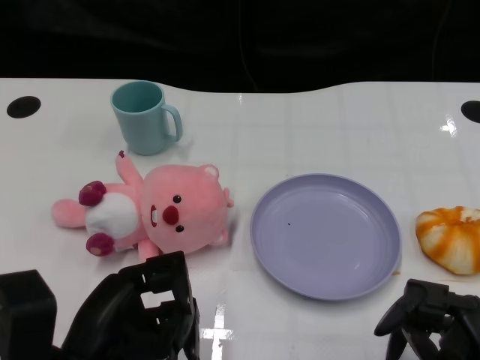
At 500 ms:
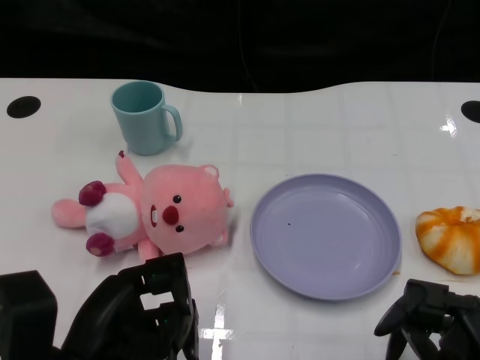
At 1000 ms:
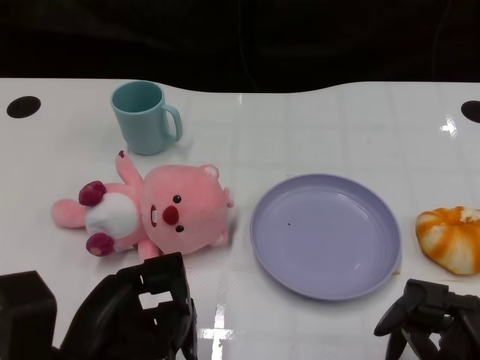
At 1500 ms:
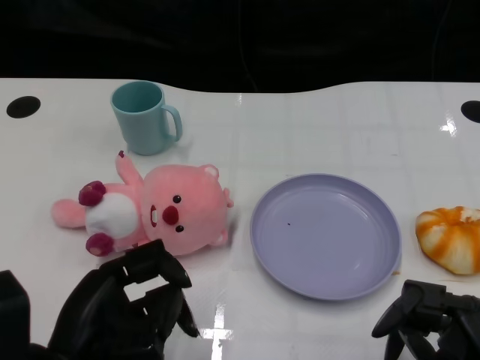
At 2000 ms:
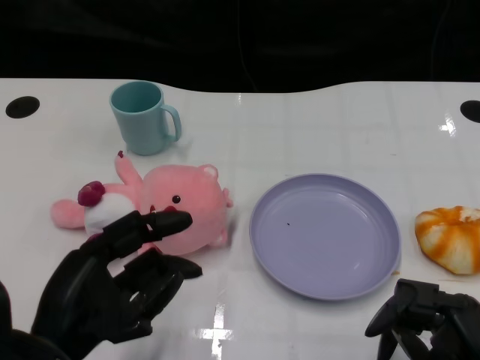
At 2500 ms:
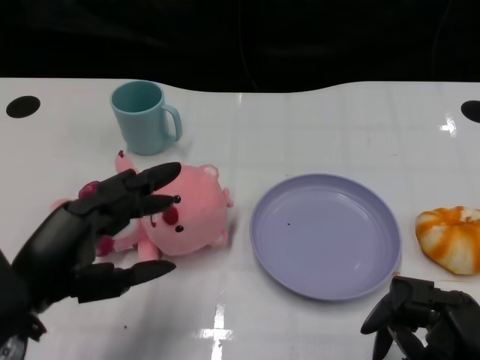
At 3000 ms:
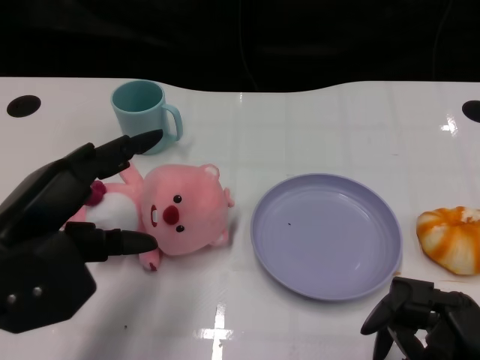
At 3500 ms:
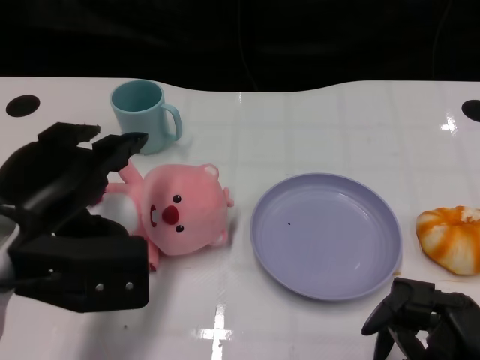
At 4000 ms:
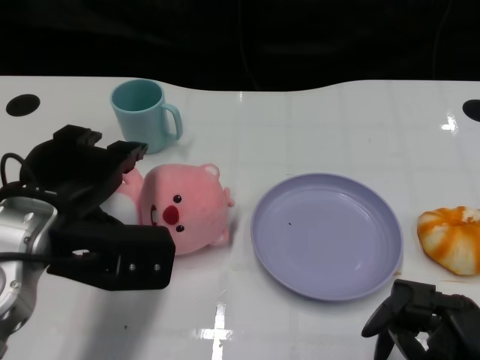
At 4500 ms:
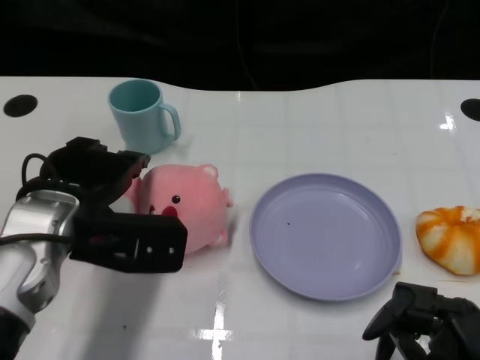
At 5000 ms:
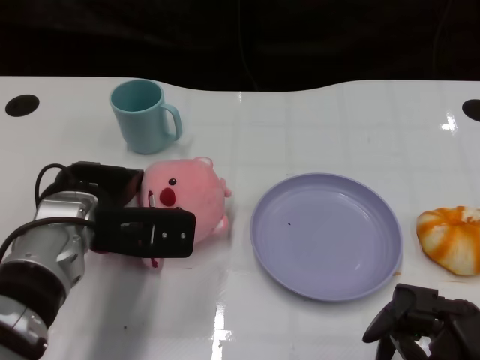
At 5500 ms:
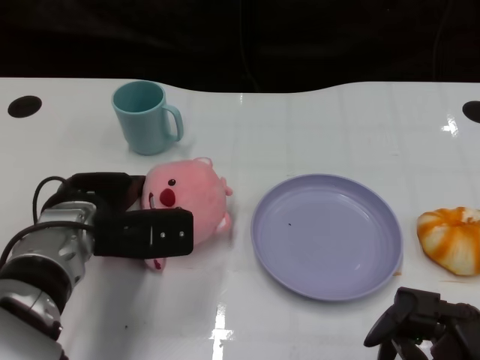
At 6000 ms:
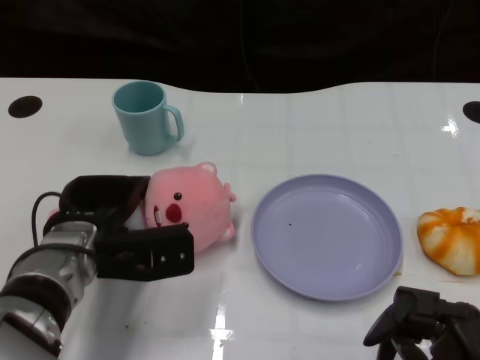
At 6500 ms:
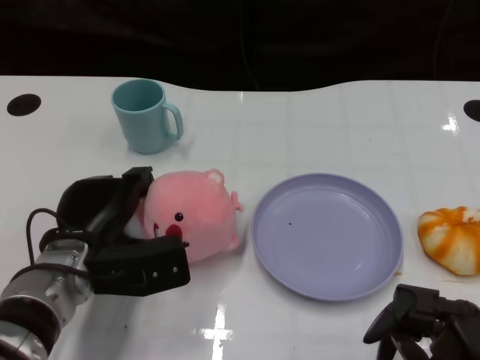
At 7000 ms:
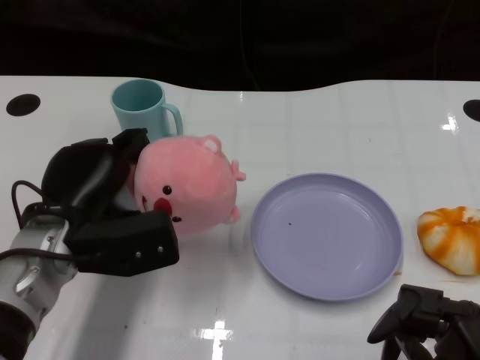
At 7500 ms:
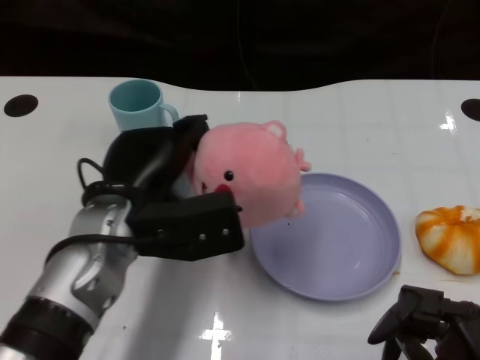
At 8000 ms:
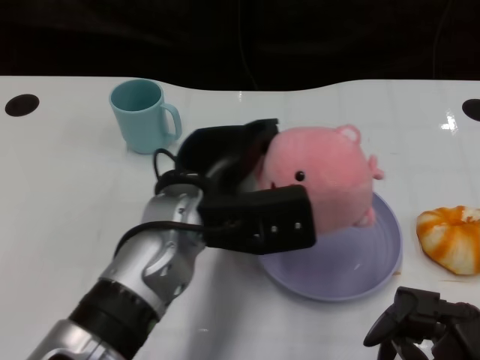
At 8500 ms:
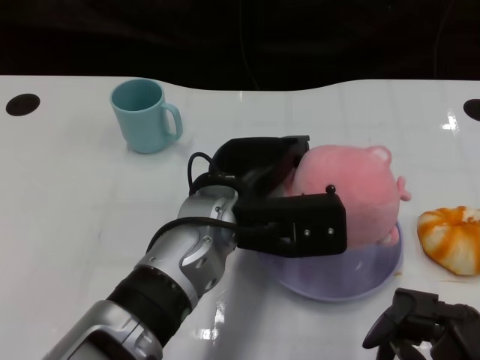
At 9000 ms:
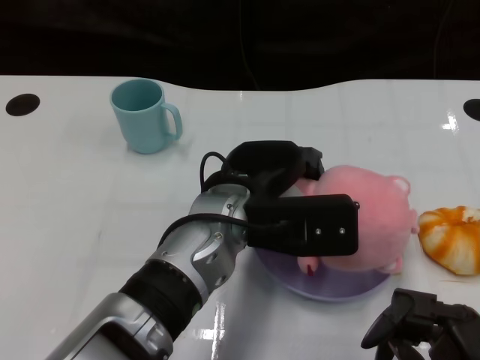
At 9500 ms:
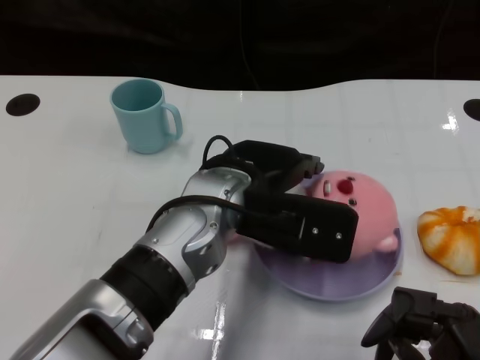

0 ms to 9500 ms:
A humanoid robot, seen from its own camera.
Task of the whole recording: Pick up the doll on one side of the plate and place it into the plate.
Step, 1500 ms to 6500 ms: Grasp the pink doll with the left gripper.
2000 ms to 4000 ms: The left hand heads forward and upward, covering about 10 cm.
4000 ms to 5500 ms: The left hand moves downward and forward, about 10 cm.
5500 ms to 7500 ms: The left hand ends up approximately 5 cm from where it was.
7500 ms to 9500 ms: The left hand goes some 10 cm to the right.

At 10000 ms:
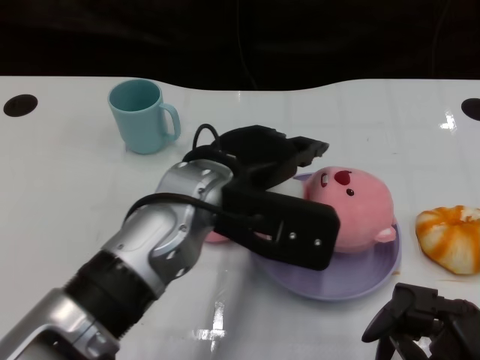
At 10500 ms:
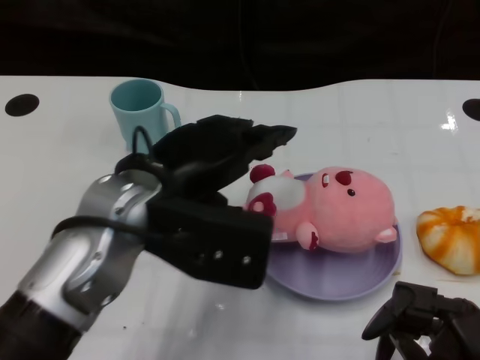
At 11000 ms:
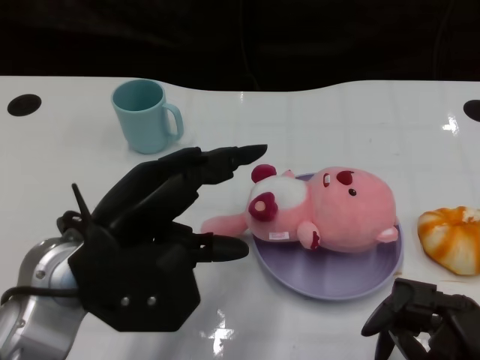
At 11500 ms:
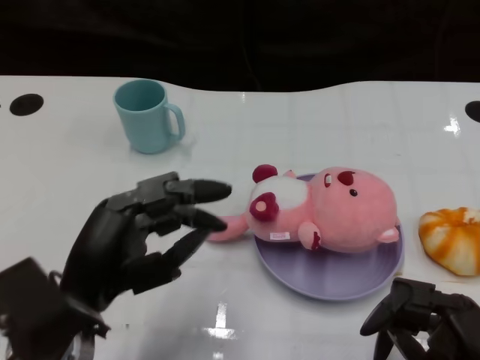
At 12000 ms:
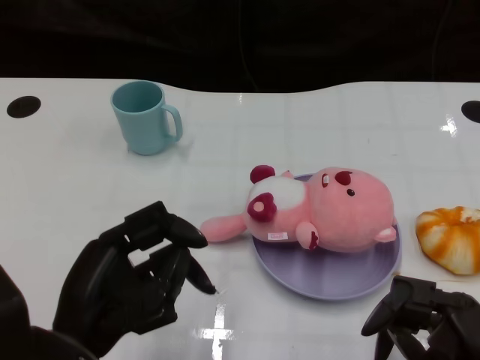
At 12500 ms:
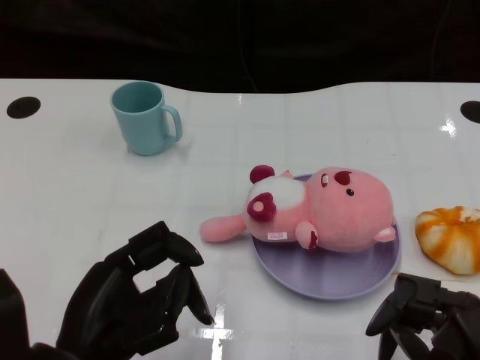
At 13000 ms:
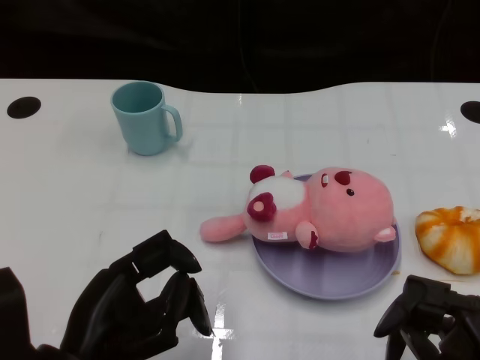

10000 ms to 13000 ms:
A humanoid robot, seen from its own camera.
Task of the whole recording: Pick up the doll on one side of the plate and place it into the plate.
10000 ms to 11500 ms: The left hand travels to the left, backward and downward by roughly 15 cm.

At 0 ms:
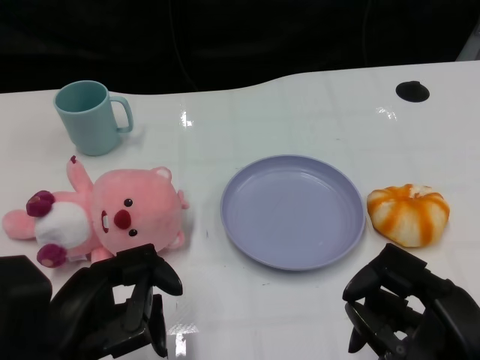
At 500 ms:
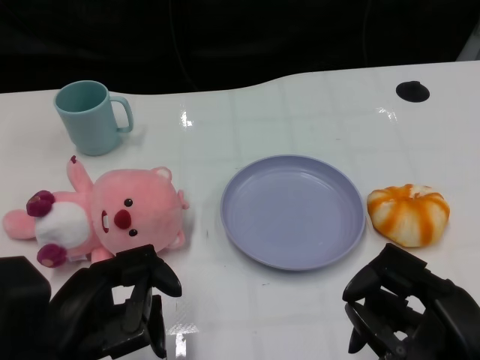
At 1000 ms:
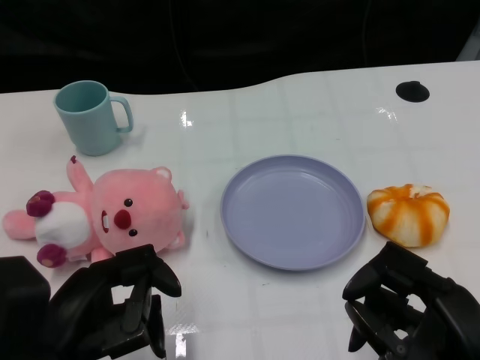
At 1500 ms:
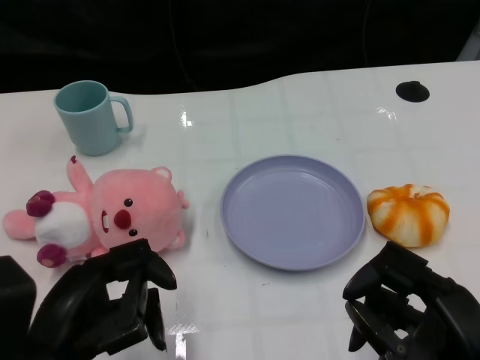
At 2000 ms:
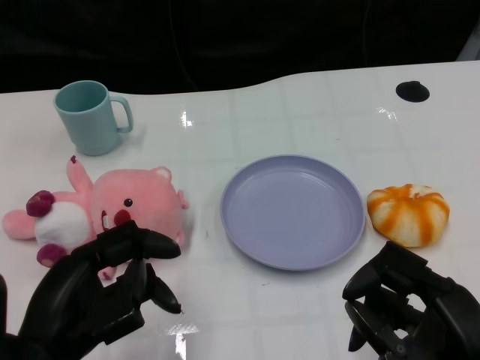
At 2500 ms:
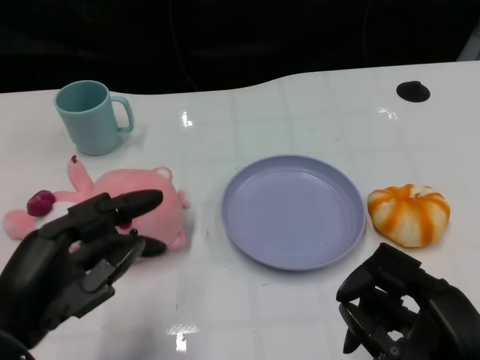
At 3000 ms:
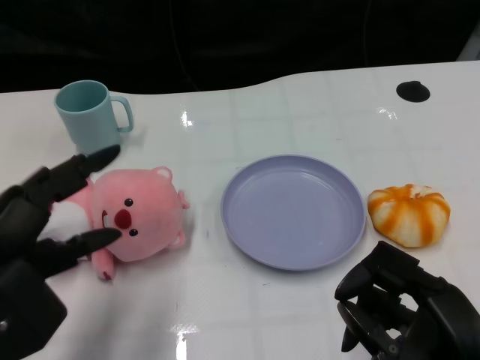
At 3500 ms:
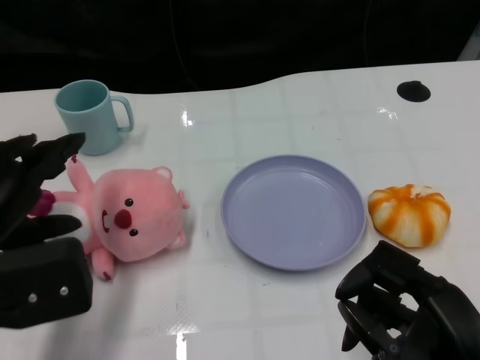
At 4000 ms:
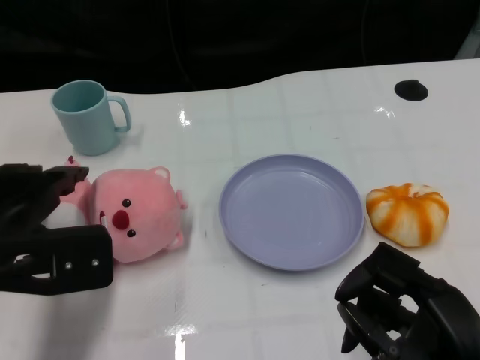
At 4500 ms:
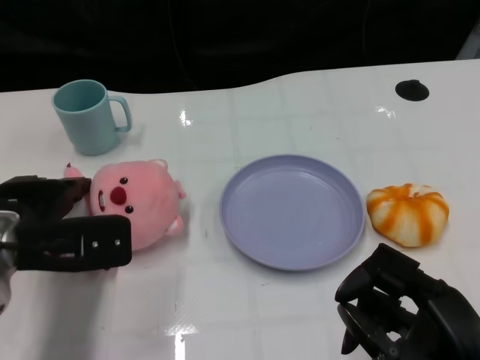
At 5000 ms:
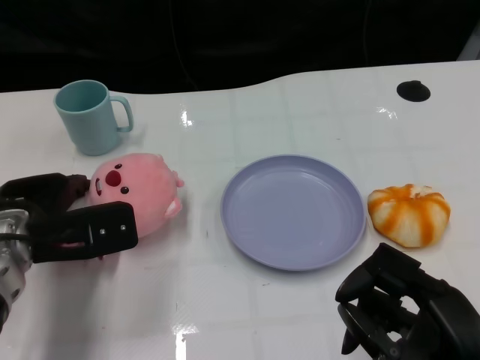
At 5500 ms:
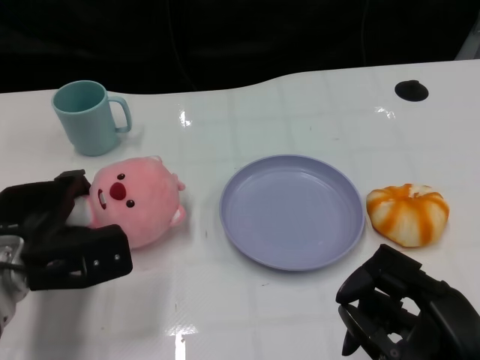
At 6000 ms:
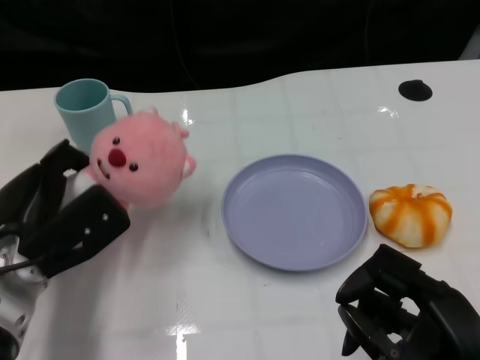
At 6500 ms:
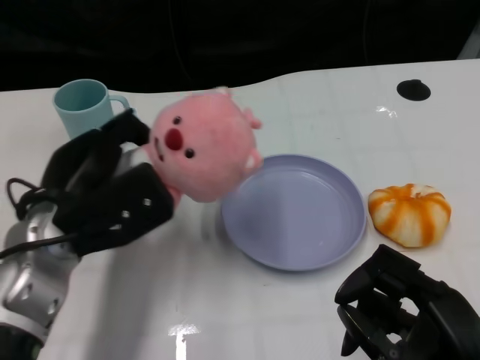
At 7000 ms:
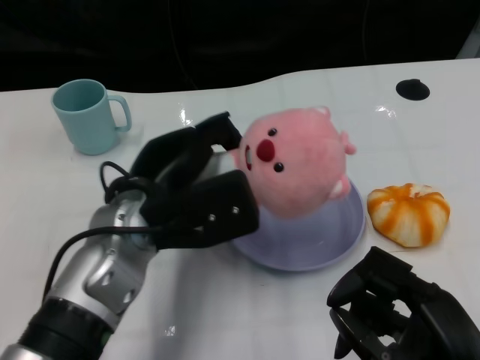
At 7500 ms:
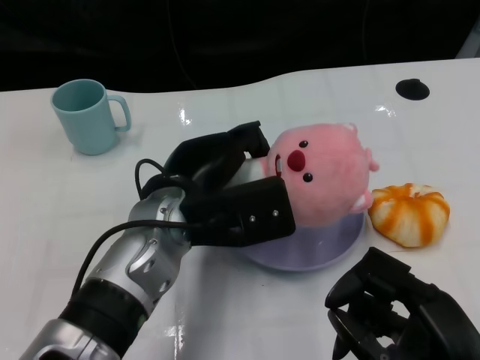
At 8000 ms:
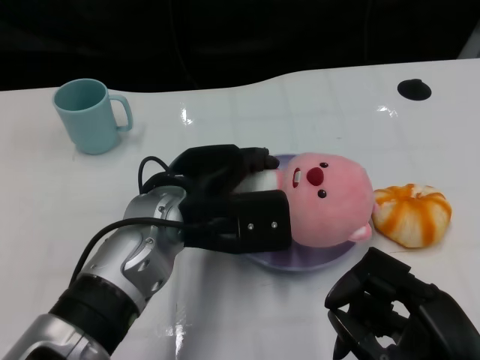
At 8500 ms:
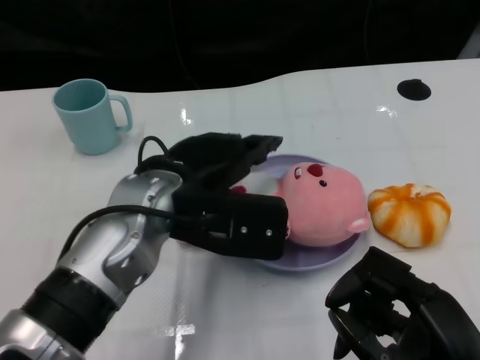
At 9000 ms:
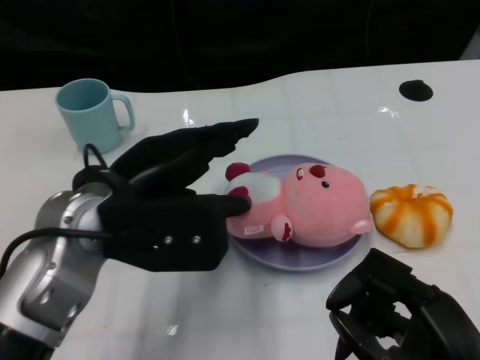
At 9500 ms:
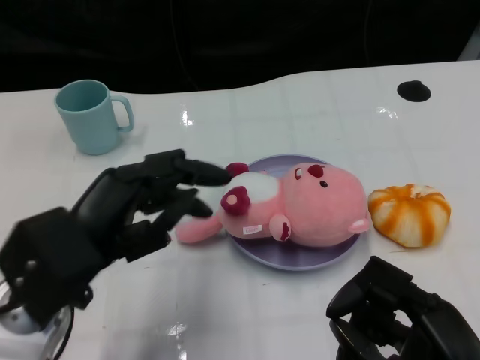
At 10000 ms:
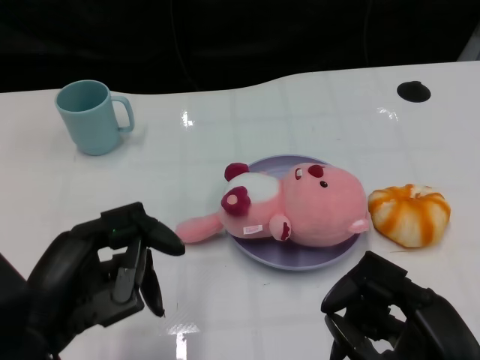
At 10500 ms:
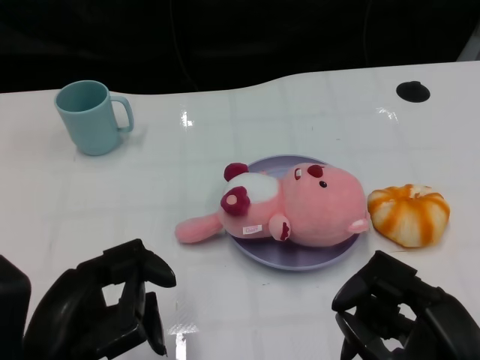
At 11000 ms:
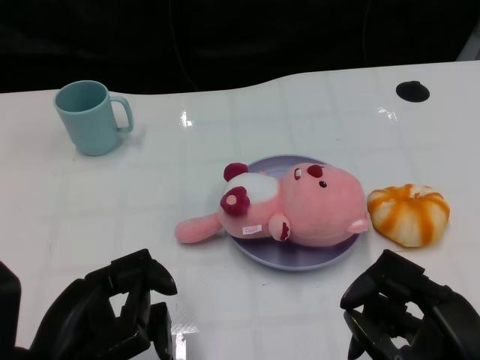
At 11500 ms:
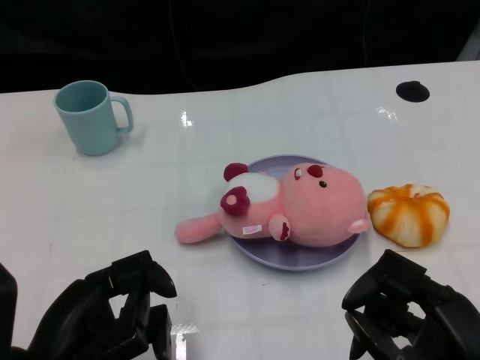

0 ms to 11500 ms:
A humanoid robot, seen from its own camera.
Task of the whole recording: Pick up the doll on one side of the plate and place it into the plate.
Step, 1500 ms to 5500 ms: Grasp the pink doll with the left gripper.
Step, 6000 ms to 8500 ms: Place the pink doll into the plate with the left gripper.
2000 ms to 4000 ms: The left hand heads forward, covering about 10 cm.
4000 ms to 6000 ms: The left hand heads downward, covering roughly 5 cm.
6000 ms to 7500 ms: The left hand shifts roughly 15 cm to the right.
7500 ms to 9500 ms: The left hand heads to the left and backward, covering about 15 cm.
9500 ms to 11500 ms: The left hand shifts roughly 5 cm backward.

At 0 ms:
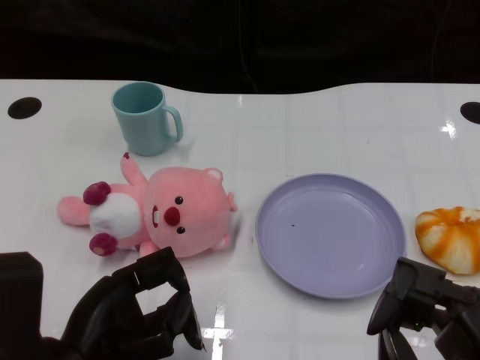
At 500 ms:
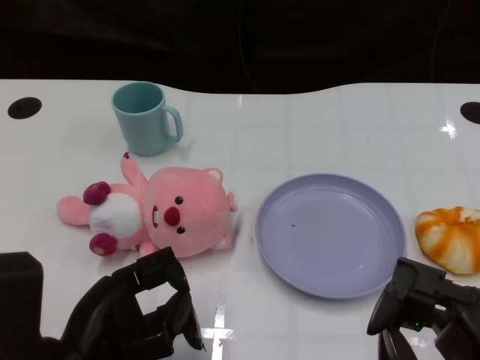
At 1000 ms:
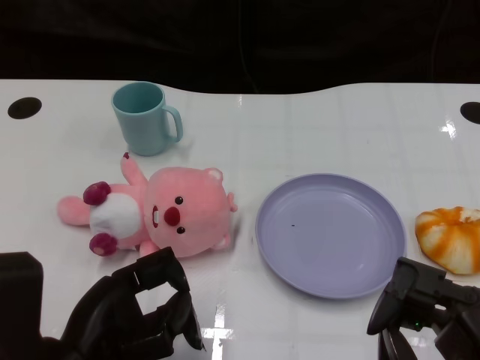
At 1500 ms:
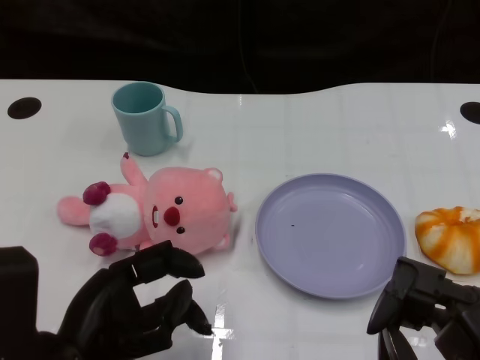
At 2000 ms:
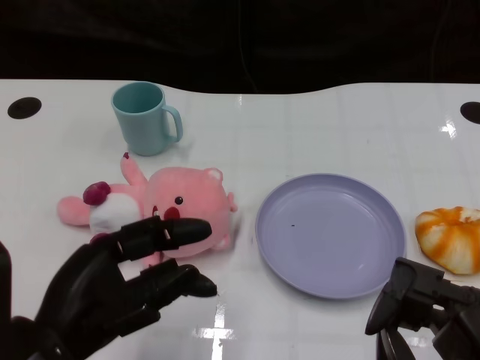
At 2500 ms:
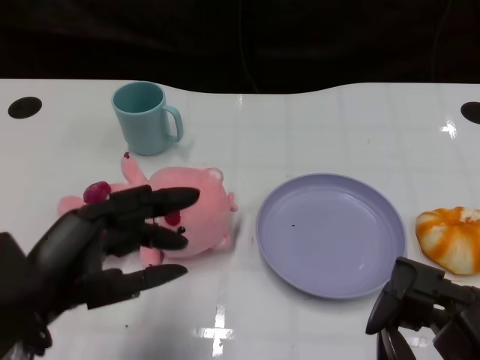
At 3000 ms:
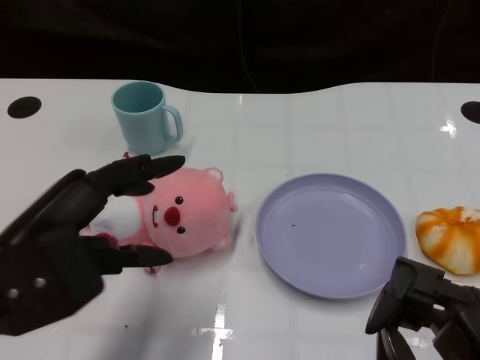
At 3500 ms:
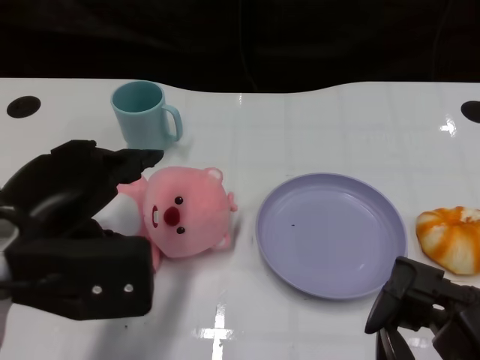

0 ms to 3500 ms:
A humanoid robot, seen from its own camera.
Task of the whole recording: Pick up the doll on one side of the plate and place it into the plate.
2000 ms to 3500 ms: The left hand goes roughly 10 cm upward and forward.
